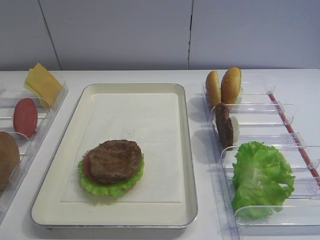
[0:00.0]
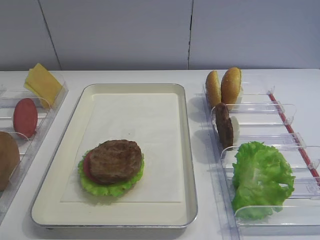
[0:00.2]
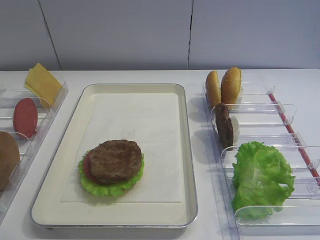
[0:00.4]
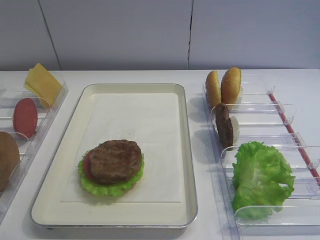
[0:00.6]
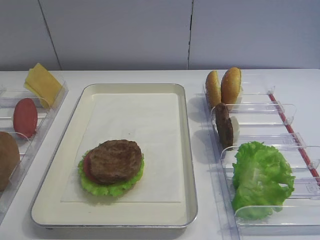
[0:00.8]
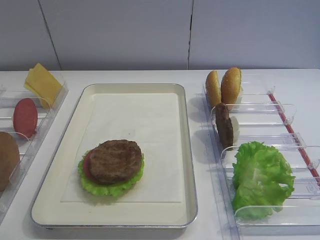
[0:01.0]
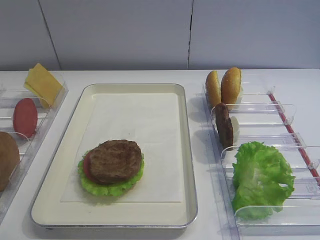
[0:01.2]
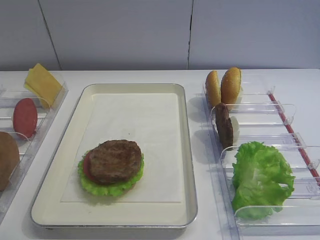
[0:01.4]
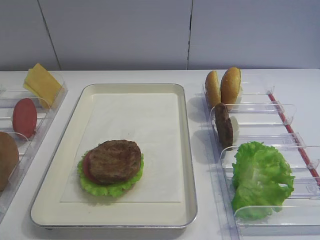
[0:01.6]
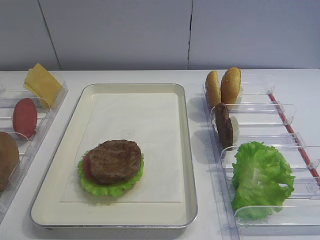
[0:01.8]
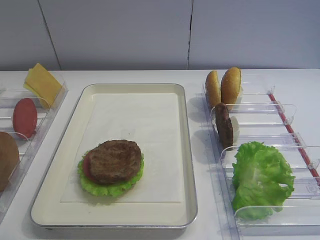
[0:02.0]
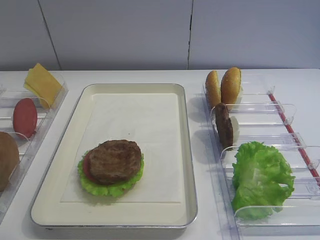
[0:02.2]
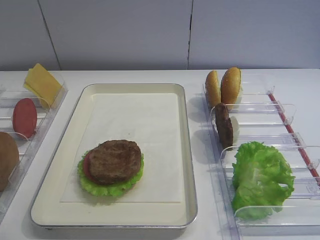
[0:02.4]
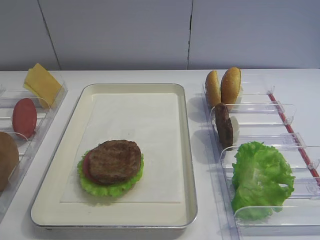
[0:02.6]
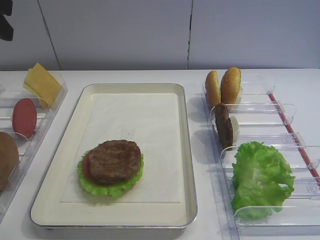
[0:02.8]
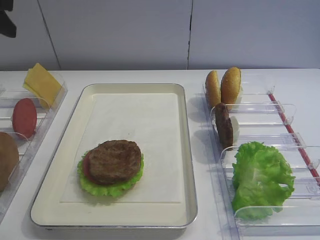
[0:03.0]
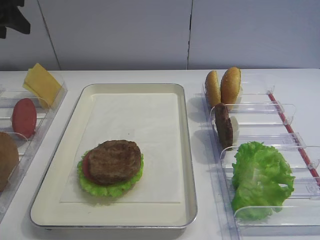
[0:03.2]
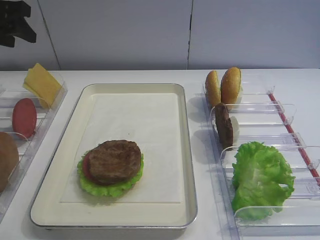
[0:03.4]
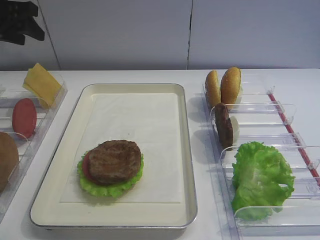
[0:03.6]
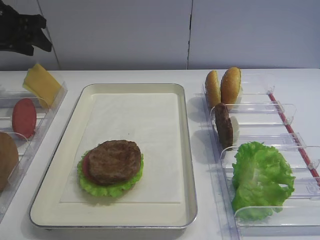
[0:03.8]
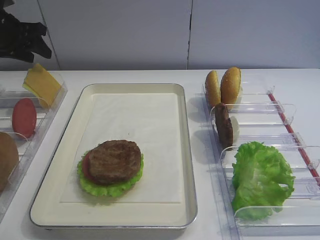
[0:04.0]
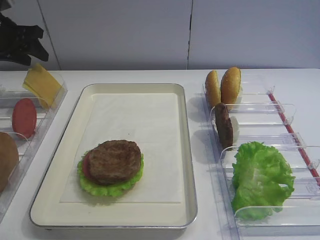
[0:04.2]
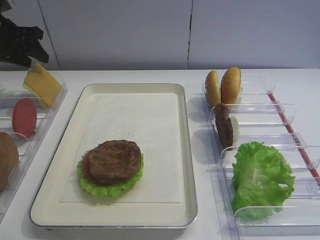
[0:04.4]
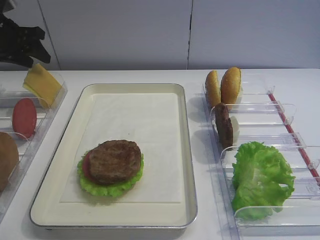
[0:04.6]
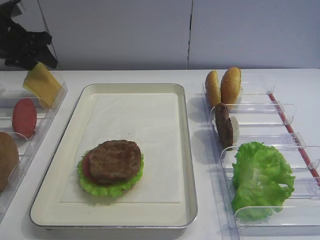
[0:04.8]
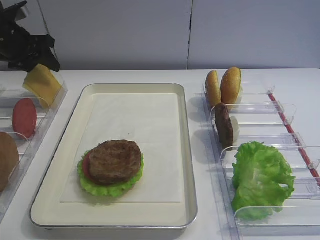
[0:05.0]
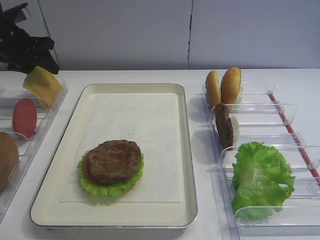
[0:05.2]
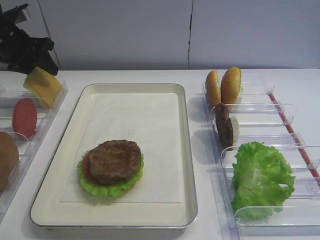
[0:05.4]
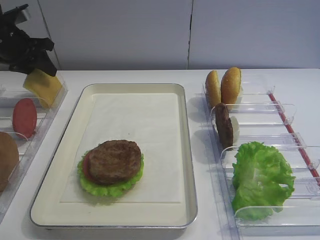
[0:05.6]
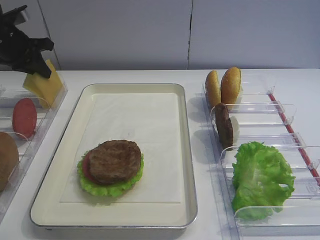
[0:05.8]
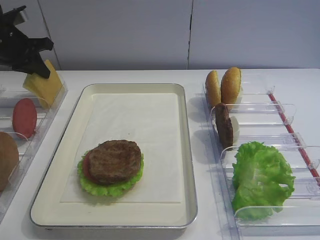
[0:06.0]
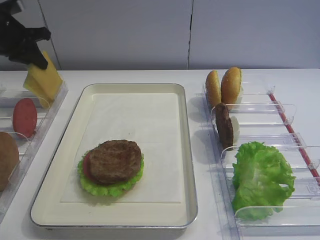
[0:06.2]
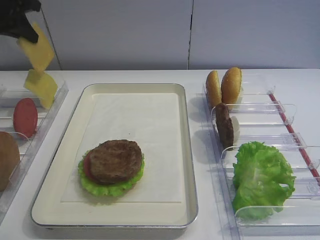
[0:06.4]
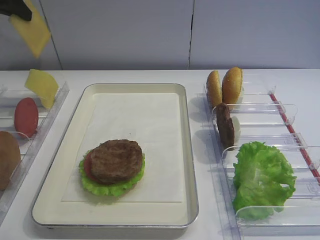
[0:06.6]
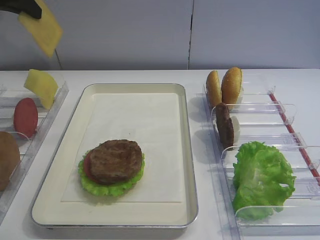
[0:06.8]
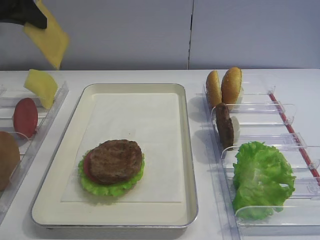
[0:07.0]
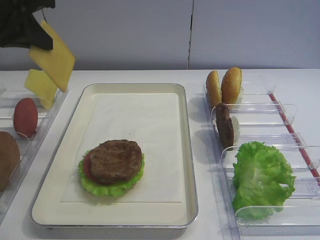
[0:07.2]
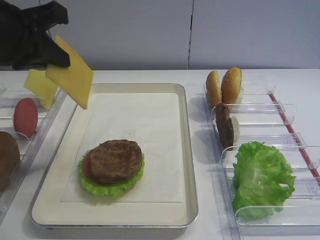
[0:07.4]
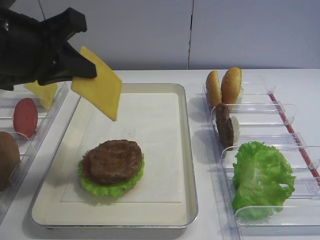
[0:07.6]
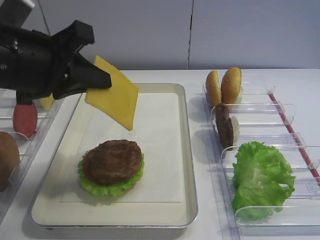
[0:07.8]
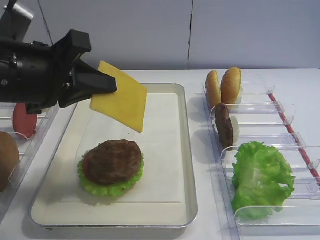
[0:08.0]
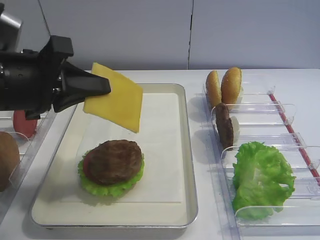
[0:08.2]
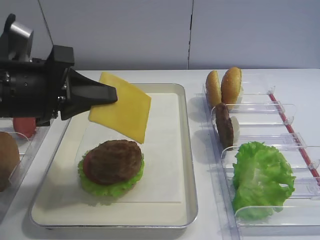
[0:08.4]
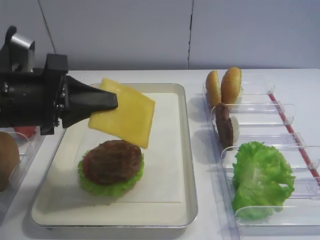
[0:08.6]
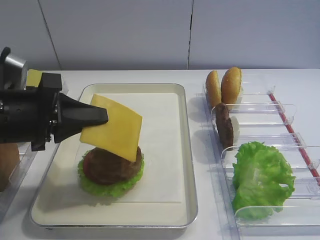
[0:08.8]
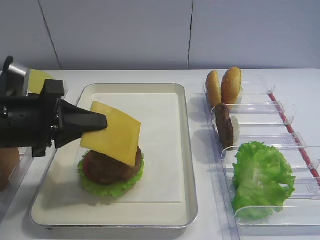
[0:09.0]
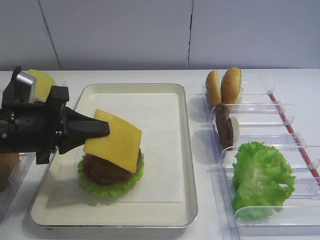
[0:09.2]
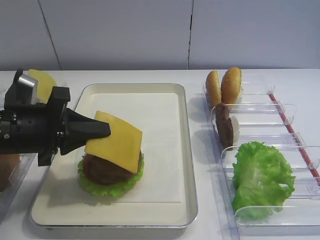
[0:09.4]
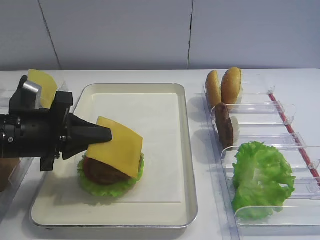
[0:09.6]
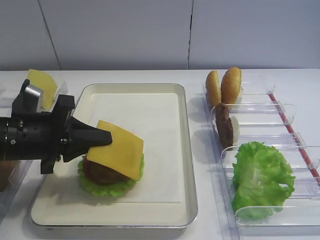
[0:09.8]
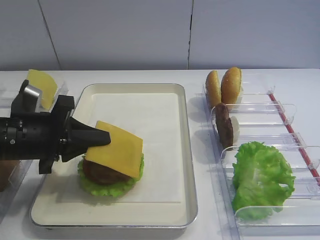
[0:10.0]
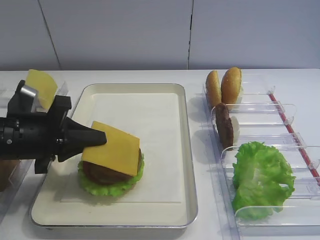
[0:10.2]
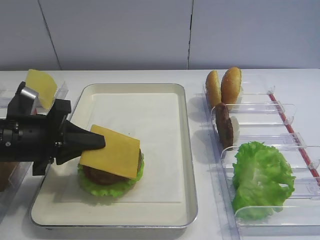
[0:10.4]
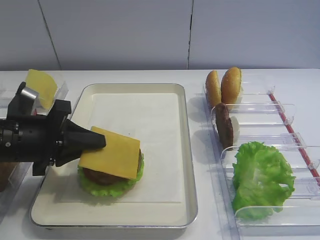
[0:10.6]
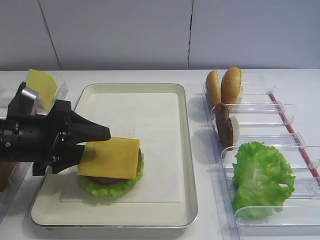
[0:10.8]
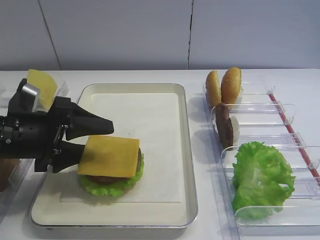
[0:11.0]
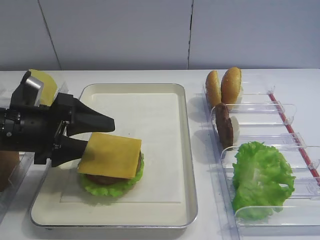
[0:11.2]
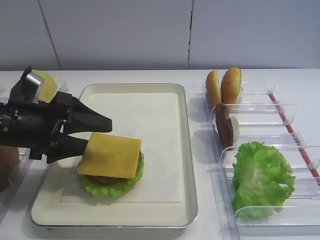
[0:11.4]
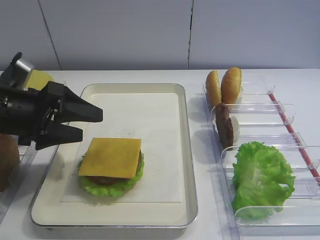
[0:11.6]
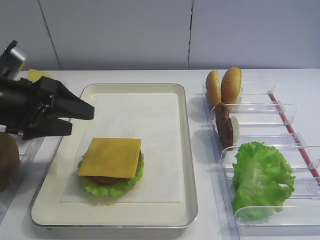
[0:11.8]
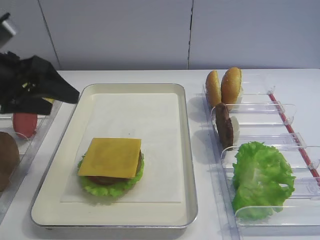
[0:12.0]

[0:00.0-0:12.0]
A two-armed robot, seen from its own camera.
Step, 0:00.0 to 0:06.6: Pick up the cheese slice with the left gripper.
Step, 0:06.8 to 0:11.8: Place the cheese slice on the cutlet with the left gripper.
0:03.0 to 0:04.4: The left gripper moves forward and downward, about 15 cm.
0:04.4 to 0:06.0: The left gripper closes its fingers.
0:06.0 to 0:07.6: The left gripper moves backward and to the right, roughly 25 cm.
0:07.6 to 0:09.0: The left gripper travels downward by some 10 cm.
0:09.0 to 0:10.4: The grippers make only small movements.
0:10.4 to 0:12.0: The left gripper goes some 10 cm upward, and opens its fingers.

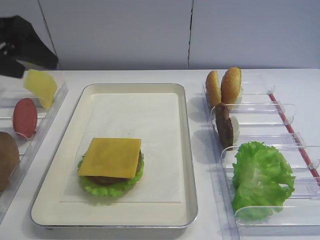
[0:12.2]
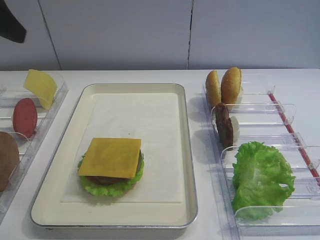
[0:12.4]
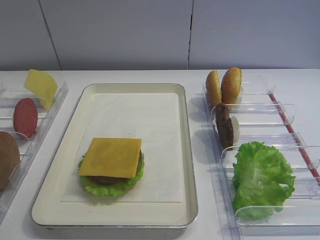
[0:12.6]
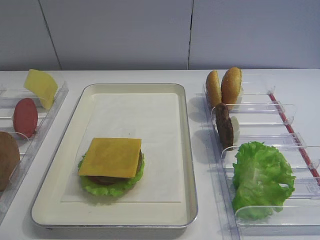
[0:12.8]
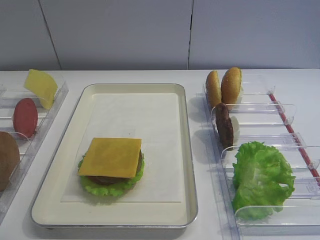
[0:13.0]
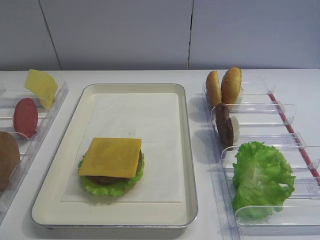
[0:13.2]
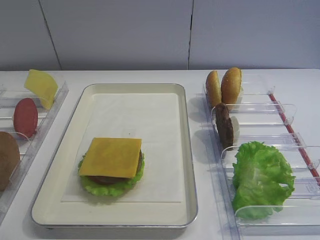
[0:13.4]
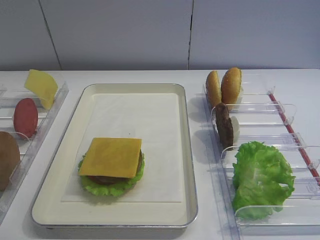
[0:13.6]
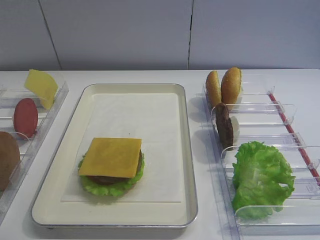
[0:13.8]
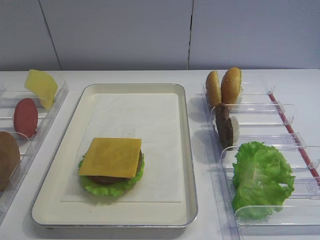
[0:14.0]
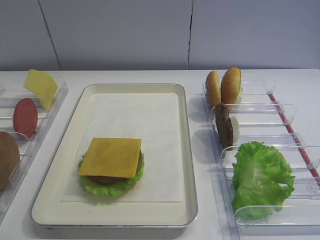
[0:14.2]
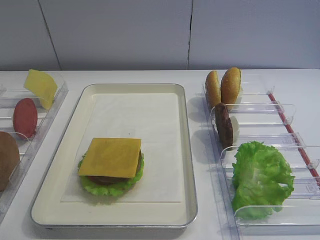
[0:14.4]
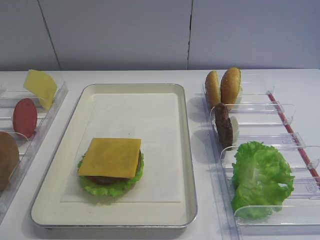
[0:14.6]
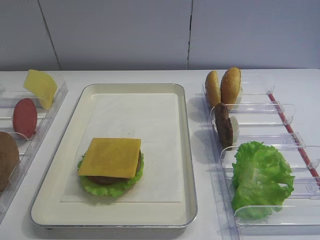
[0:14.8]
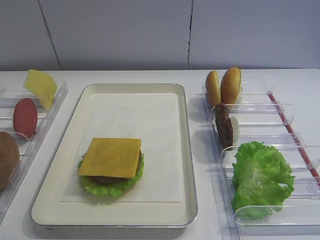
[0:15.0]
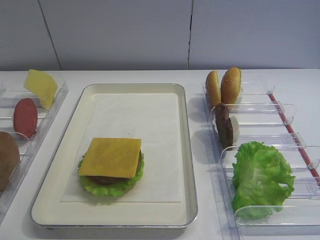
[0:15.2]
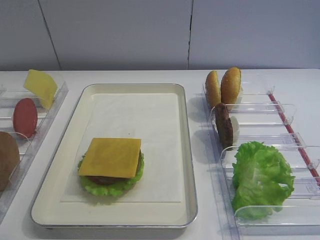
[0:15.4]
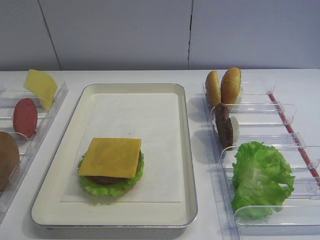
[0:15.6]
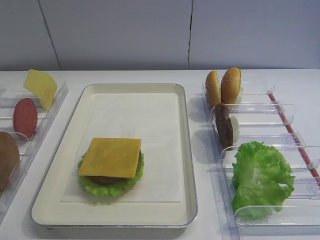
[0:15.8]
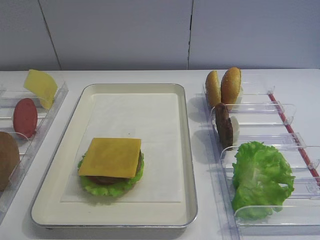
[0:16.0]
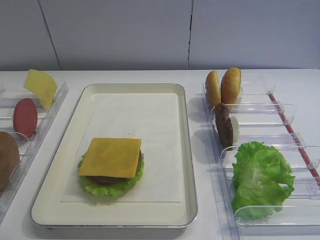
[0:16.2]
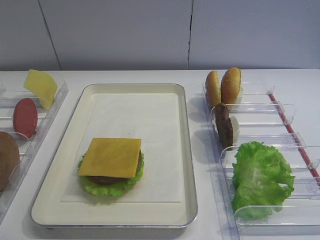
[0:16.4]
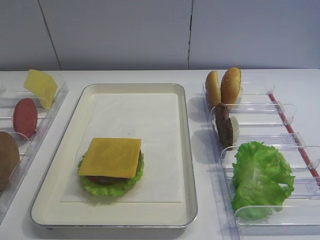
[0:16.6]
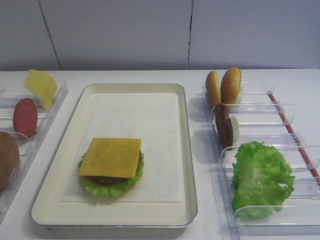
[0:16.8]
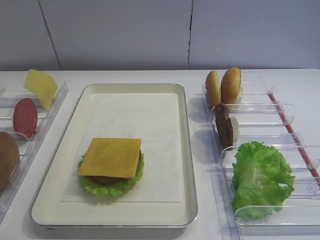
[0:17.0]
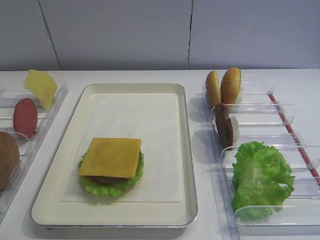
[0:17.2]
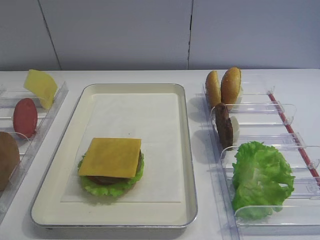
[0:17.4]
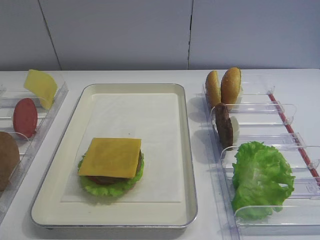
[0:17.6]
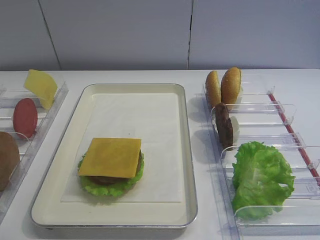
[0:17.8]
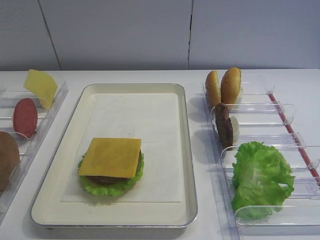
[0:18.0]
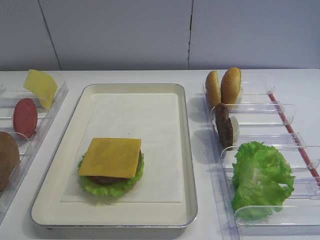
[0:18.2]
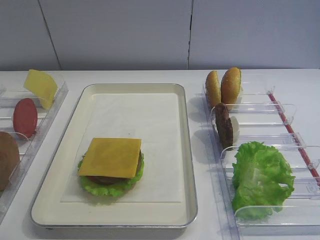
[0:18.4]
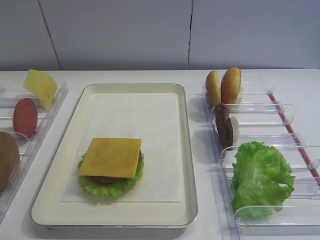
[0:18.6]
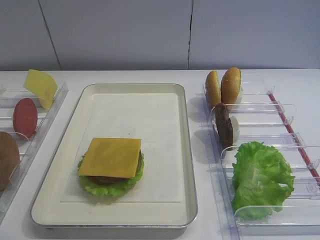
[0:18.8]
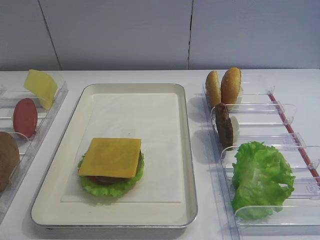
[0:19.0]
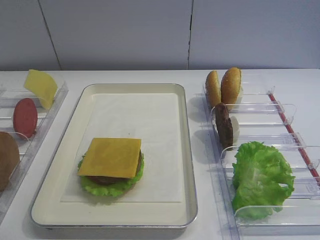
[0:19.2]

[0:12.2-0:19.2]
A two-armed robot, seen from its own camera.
0:12.2 to 0:13.6: The left gripper is displaced backward by roughly 30 cm.
0:15.0 to 0:17.8: Both grippers stay about where they are.

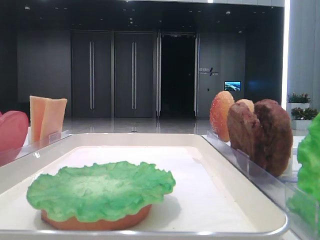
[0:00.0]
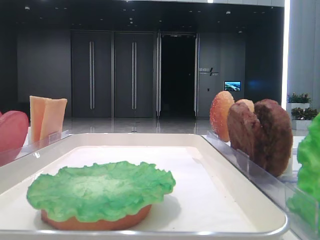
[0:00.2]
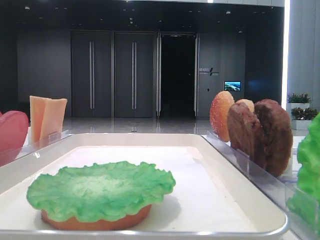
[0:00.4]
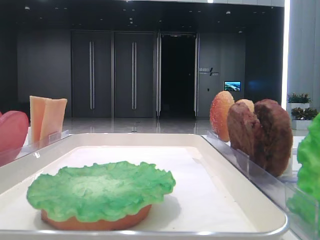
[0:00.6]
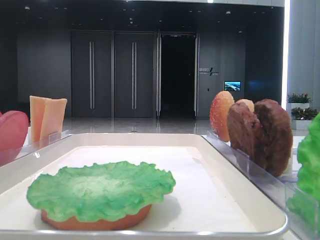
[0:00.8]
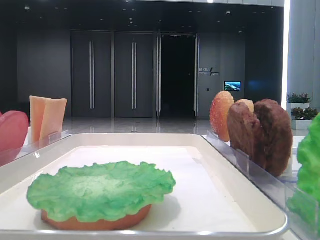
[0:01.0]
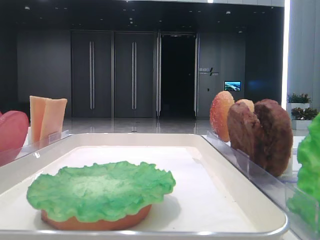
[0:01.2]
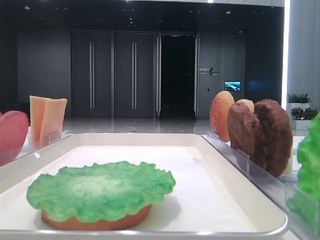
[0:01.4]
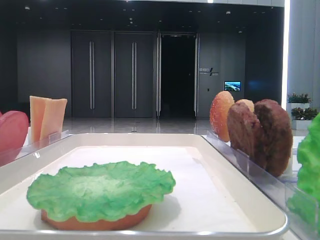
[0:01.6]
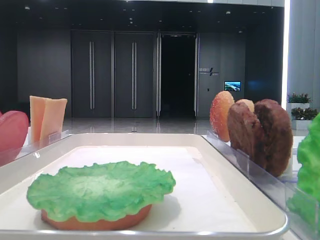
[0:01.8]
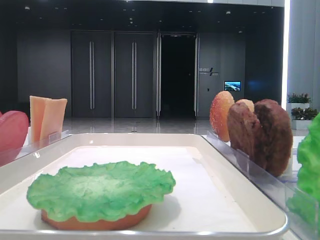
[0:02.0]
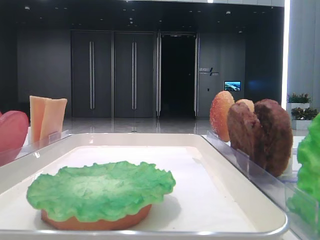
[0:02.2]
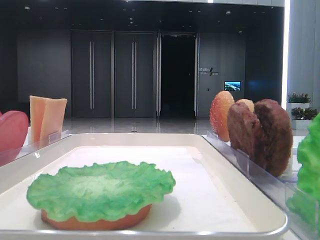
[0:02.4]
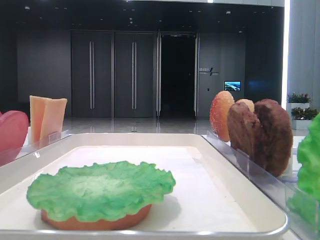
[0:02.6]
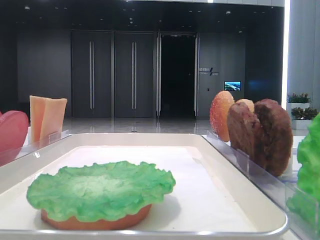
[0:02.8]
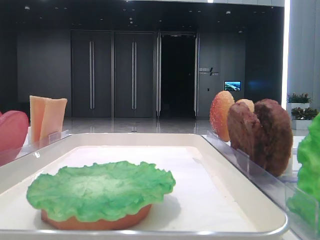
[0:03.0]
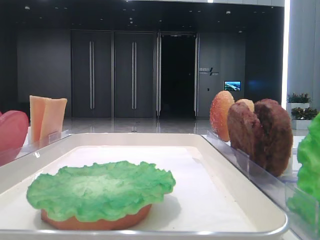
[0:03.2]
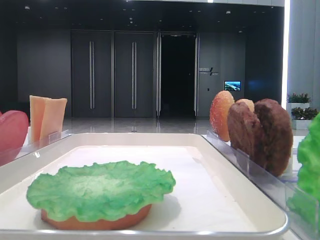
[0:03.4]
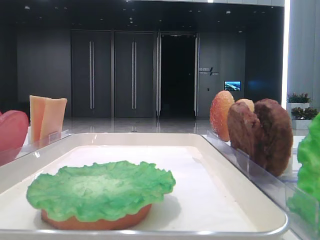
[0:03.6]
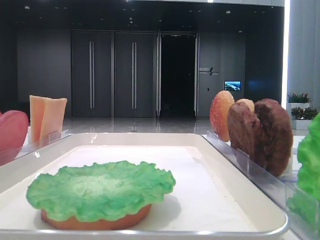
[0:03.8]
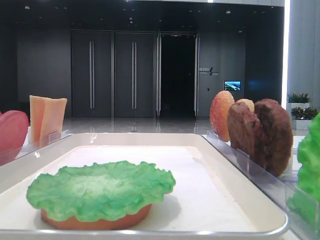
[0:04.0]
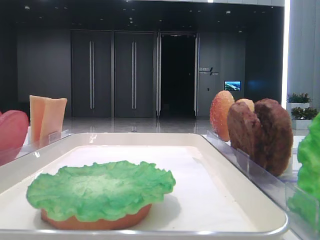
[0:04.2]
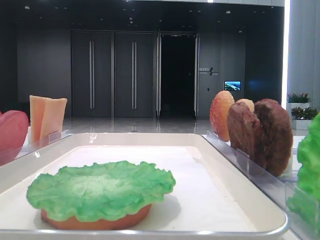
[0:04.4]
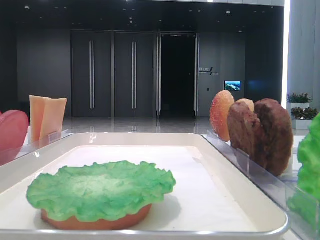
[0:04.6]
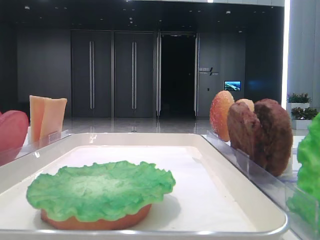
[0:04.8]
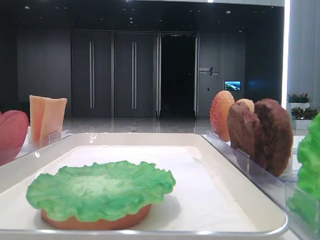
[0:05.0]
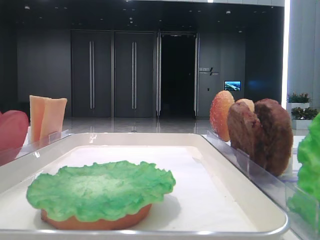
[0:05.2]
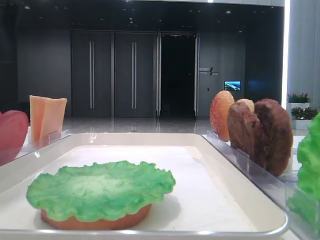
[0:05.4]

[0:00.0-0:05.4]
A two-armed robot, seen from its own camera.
0:04.0 to 0:05.4: The left gripper heads to the right, covering some 10 cm.
